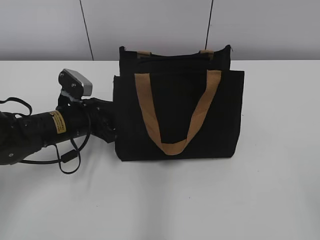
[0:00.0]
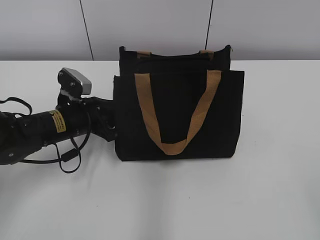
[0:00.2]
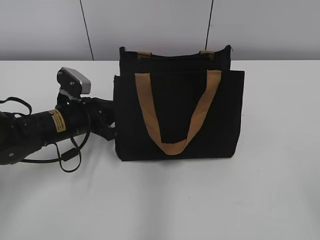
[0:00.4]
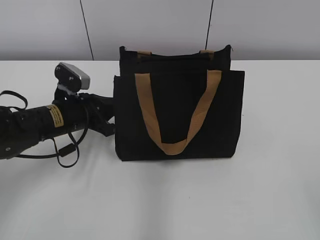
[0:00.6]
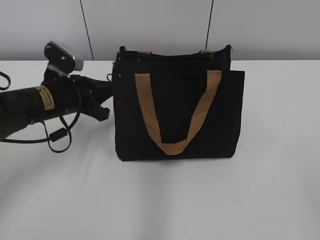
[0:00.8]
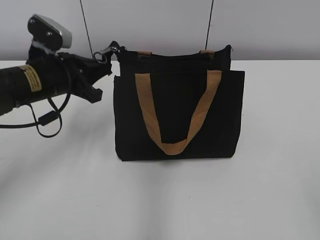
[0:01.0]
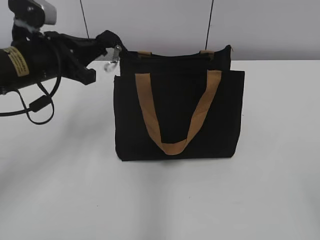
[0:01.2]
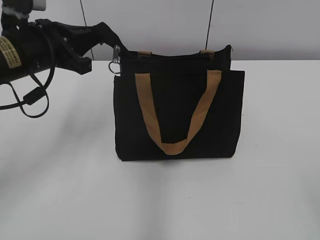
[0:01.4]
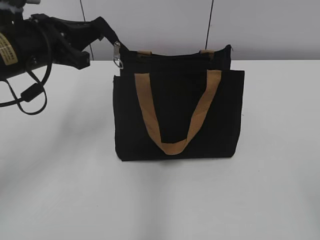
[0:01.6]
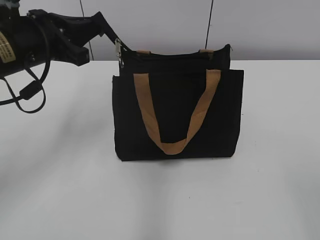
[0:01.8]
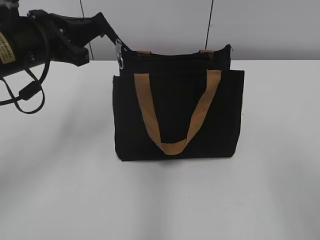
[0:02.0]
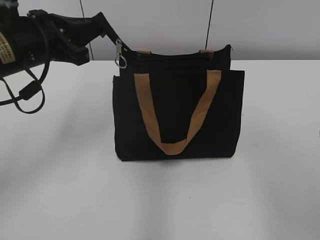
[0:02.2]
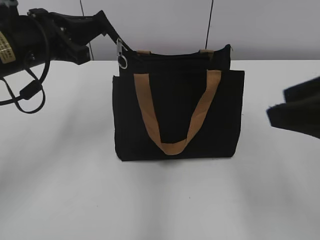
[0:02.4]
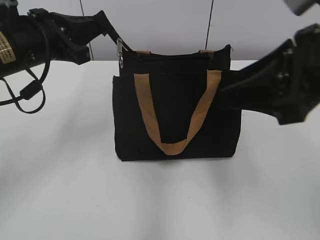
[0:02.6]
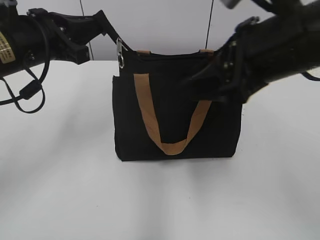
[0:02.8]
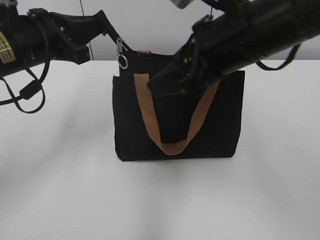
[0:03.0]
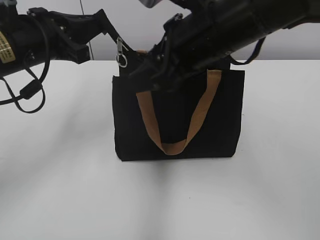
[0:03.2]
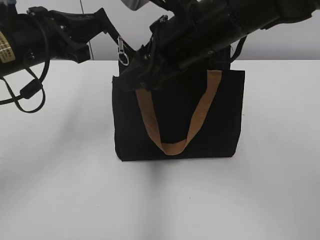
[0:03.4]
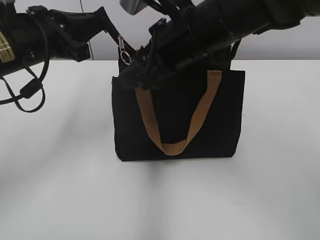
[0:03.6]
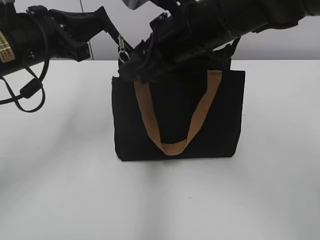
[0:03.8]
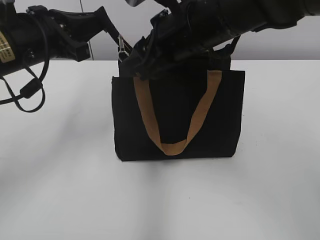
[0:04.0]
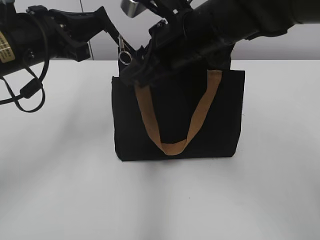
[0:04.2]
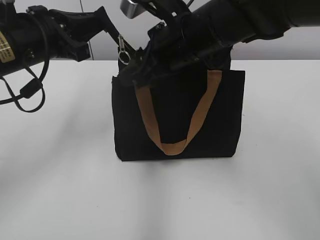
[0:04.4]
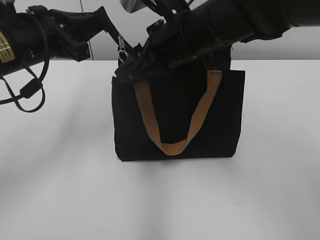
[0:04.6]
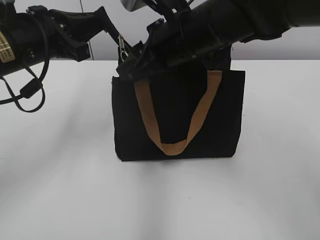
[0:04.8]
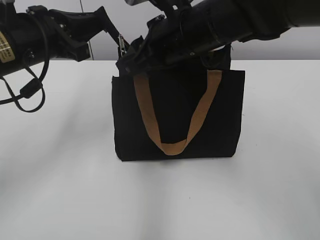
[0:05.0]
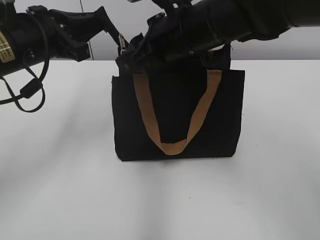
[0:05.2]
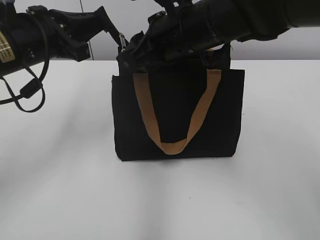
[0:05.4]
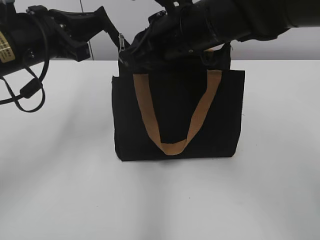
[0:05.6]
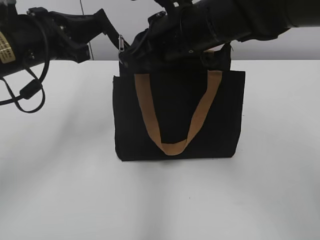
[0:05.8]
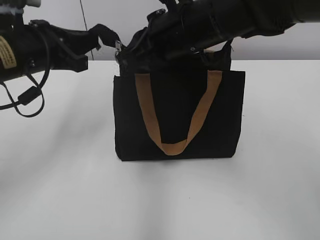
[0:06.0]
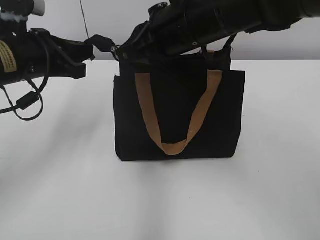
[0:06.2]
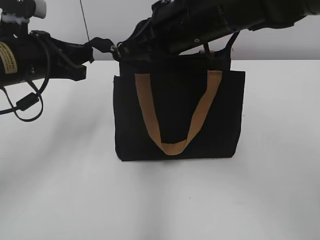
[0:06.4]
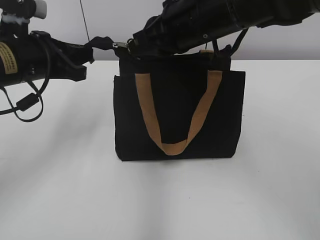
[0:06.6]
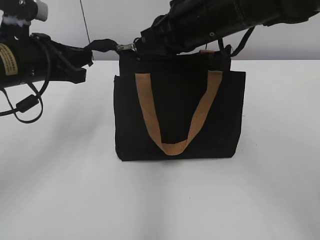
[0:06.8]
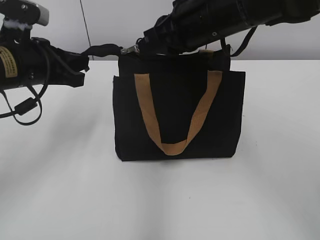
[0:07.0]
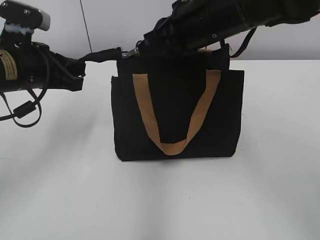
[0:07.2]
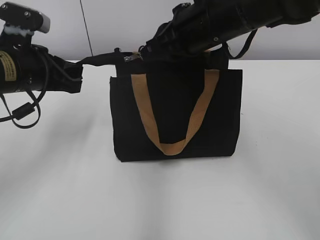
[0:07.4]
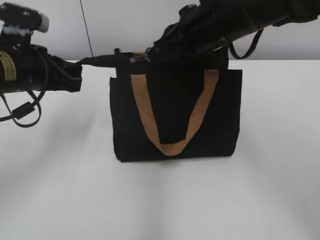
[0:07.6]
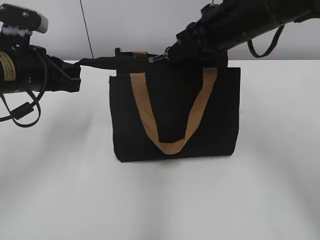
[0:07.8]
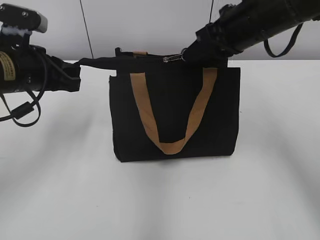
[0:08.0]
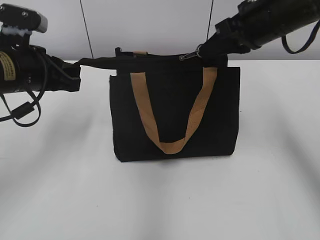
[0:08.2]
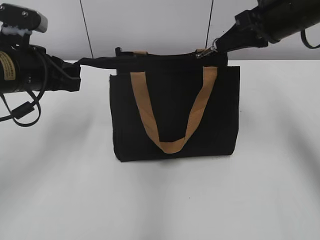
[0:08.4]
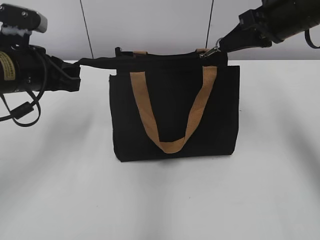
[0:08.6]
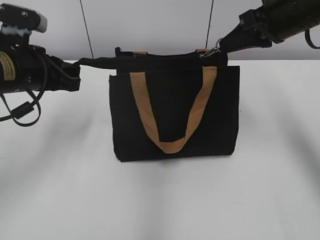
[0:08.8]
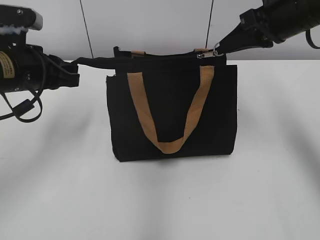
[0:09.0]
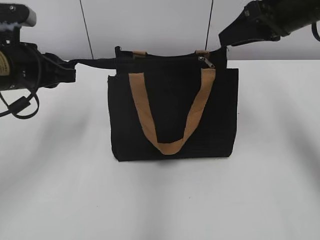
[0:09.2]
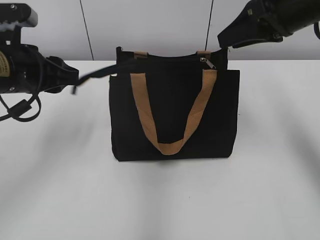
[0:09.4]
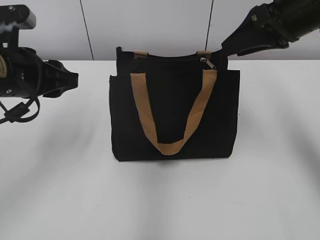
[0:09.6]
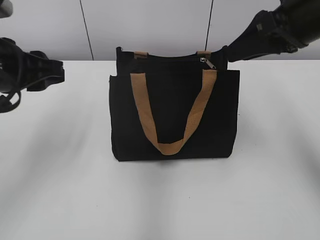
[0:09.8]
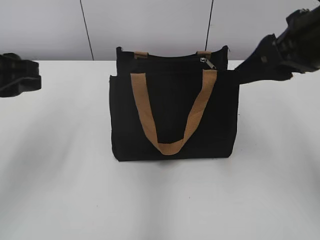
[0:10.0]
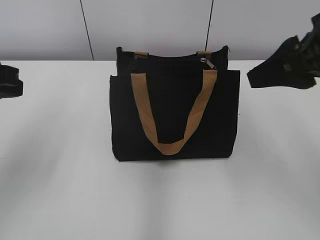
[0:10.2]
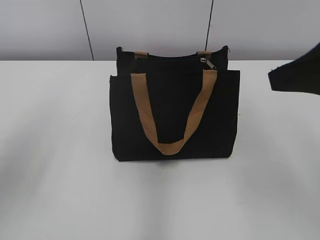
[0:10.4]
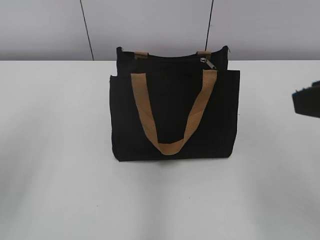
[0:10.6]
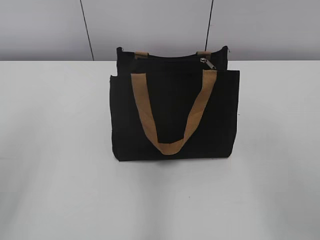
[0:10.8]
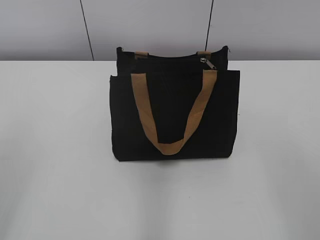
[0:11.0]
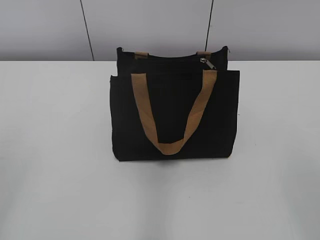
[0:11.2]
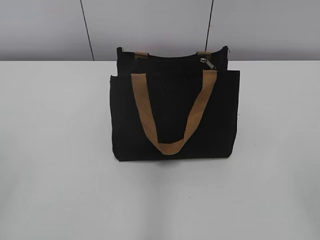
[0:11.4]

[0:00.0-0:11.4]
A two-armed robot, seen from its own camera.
Step, 0:00.0 to 0:09.0: Zip up the bag with your right hand.
Step, 0:09.2 to 0:09.4: Grab the zipper with your left hand.
0:00.0 to 0:01.4: The left gripper heads upward, covering approximately 15 cm, and closes.
0:01.4 to 0:02.8: The right gripper is displaced forward and to the left by about 30 cm.
0:02.8 to 0:04.2: The right gripper heads forward and to the left, covering some 10 cm.
0:04.2 to 0:05.6: The right gripper closes up.
0:07.2 to 0:08.6: The right gripper heads to the right, covering about 15 cm.
0:08.6 to 0:10.0: The left gripper goes approximately 10 cm backward and upward, and opens. The right gripper is displaced backward by approximately 10 cm, and opens up.
0:10.0 to 0:11.4: The left gripper goes some 25 cm backward and to the left. The right gripper goes about 25 cm backward.

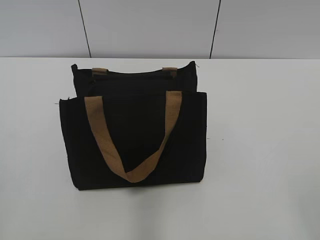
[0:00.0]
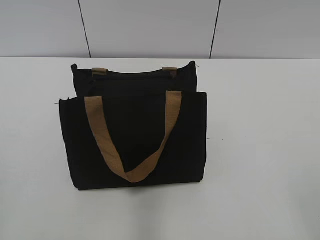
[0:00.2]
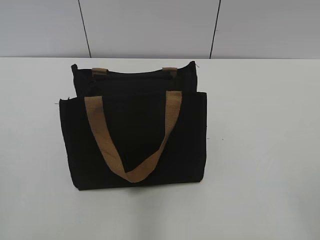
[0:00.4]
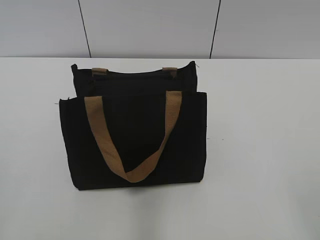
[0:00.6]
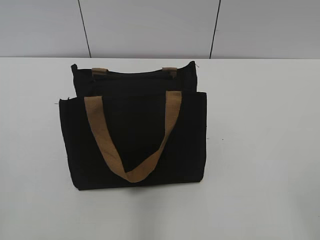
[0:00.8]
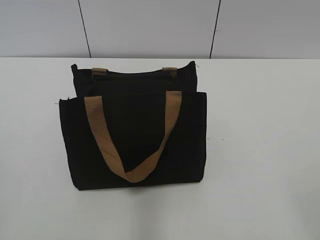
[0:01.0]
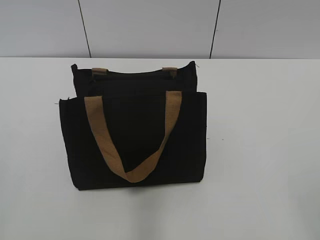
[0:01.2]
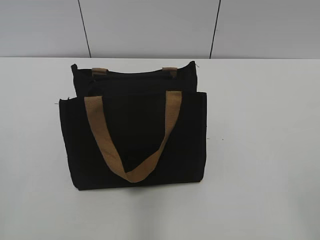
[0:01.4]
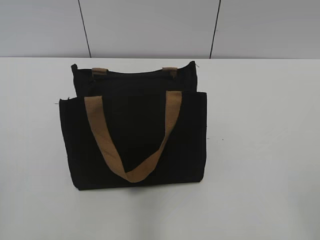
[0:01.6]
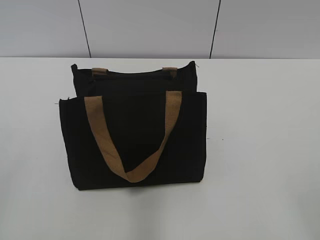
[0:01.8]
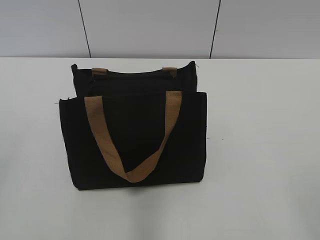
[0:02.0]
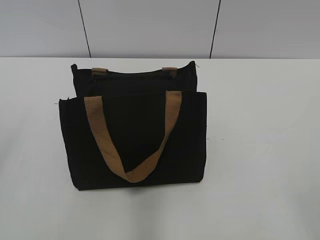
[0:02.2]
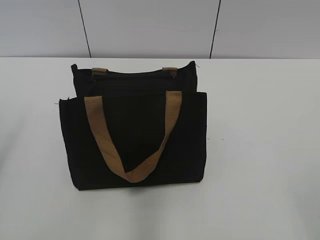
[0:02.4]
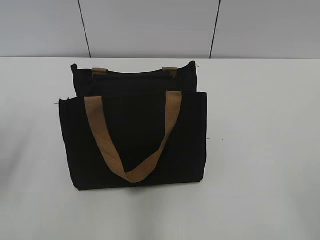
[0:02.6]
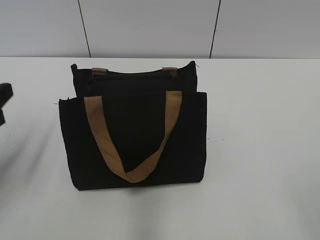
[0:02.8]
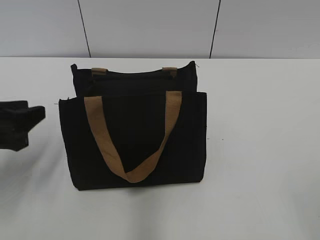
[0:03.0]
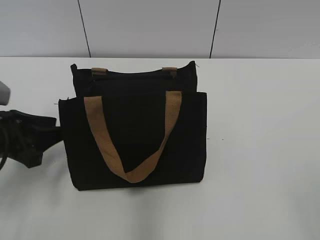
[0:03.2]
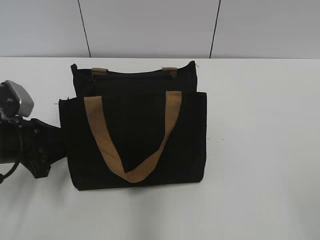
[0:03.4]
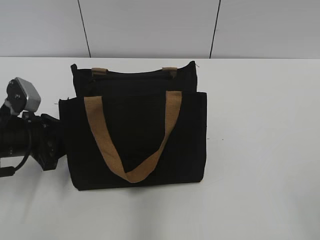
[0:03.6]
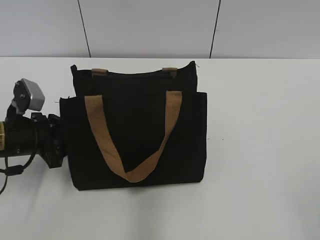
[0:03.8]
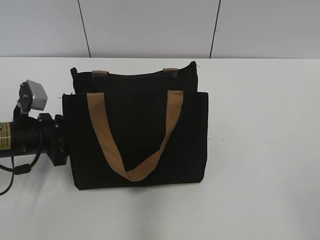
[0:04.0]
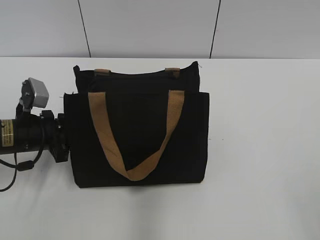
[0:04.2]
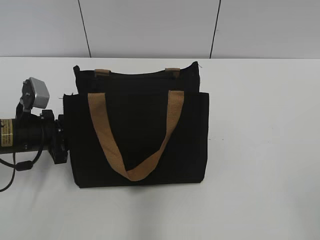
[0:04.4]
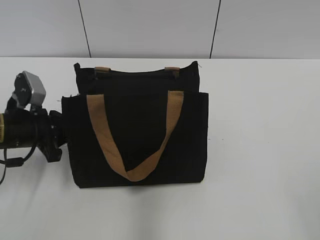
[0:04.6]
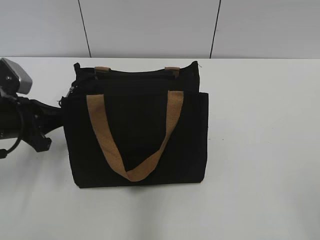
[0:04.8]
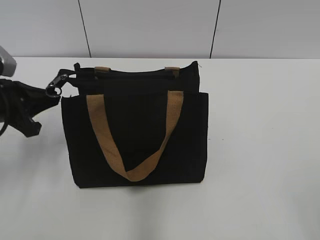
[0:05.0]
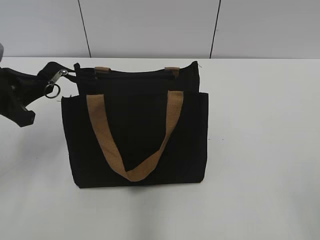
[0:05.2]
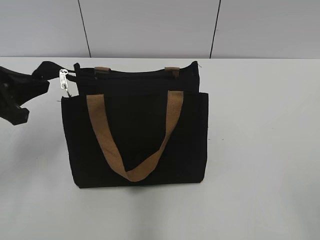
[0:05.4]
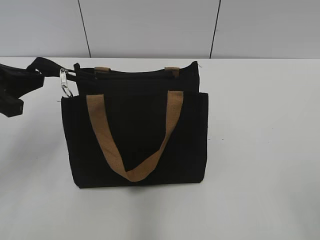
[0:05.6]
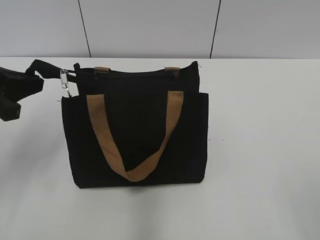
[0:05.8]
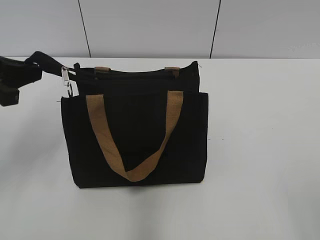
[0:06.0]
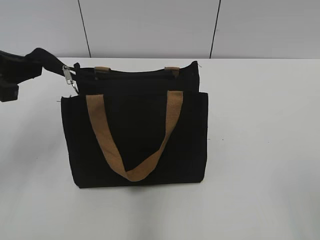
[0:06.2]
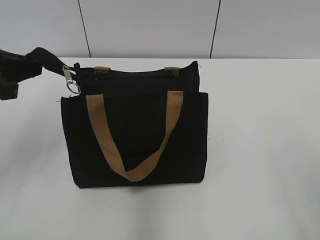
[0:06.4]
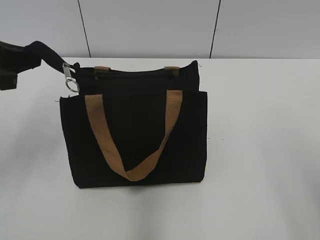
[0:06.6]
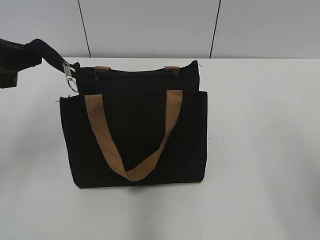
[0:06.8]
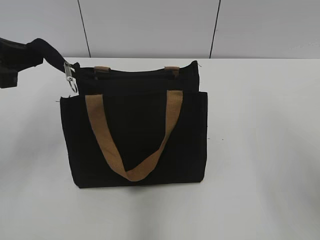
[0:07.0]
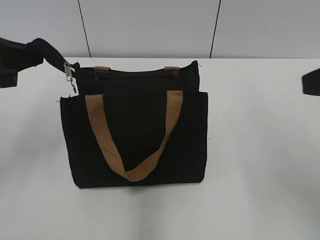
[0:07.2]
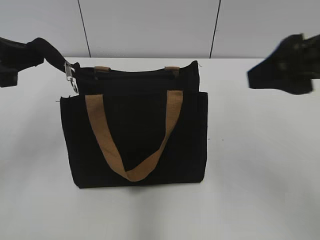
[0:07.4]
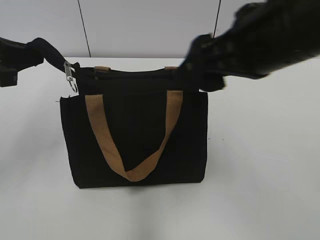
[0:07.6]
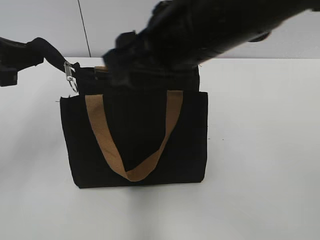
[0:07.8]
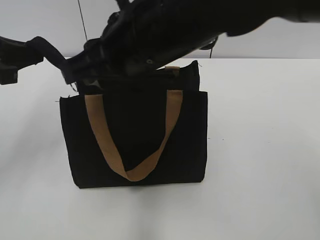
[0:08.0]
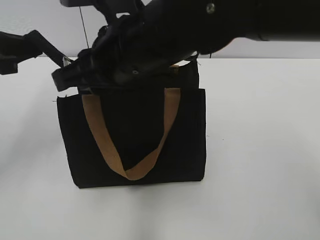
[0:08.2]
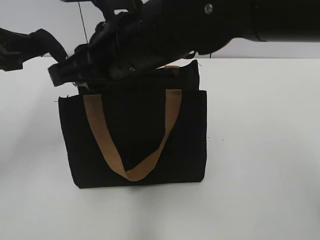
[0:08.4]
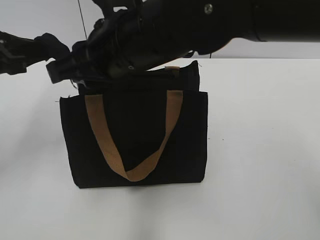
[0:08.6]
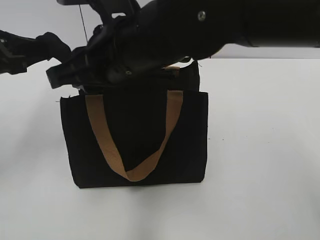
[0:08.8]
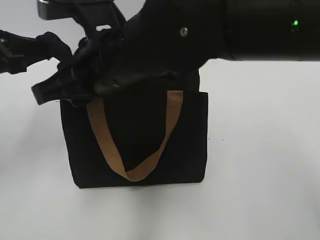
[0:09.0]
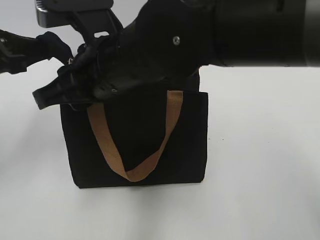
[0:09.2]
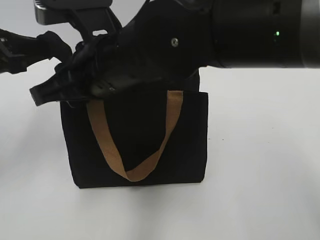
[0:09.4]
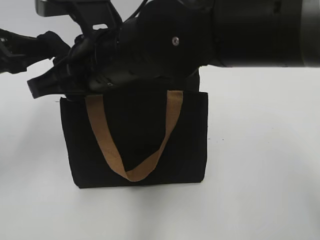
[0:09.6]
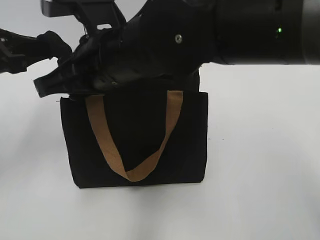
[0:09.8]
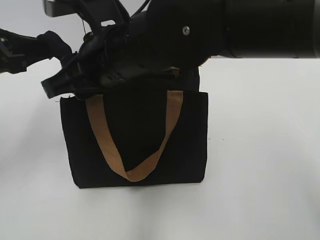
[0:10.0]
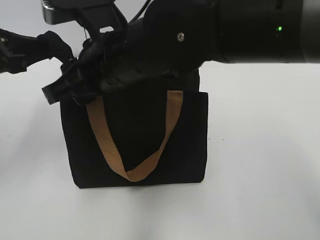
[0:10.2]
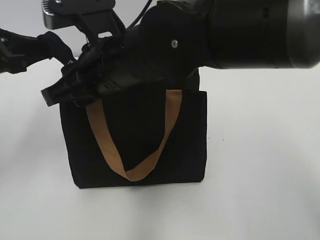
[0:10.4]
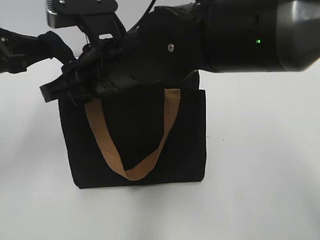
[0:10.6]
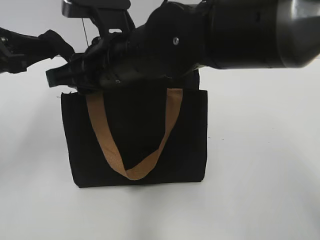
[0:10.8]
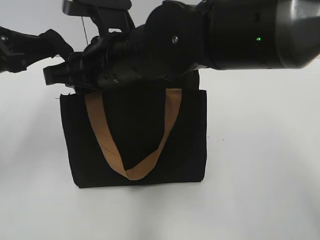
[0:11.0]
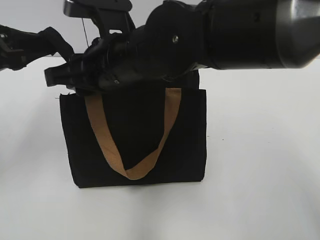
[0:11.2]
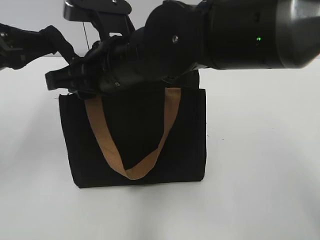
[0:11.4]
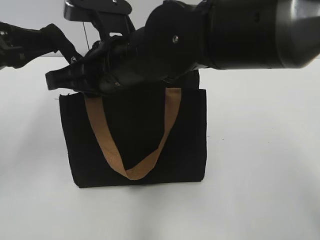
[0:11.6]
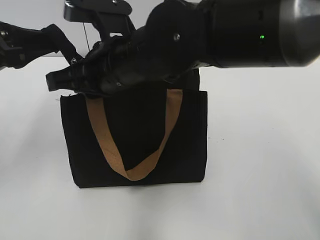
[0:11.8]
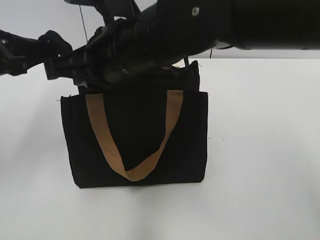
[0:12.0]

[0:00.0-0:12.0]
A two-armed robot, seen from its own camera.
0:01.6 to 0:03.0: The left gripper heads forward and downward, covering about 25 cm, and opens and closes again.
0:03.0 to 0:04.4: The left gripper heads forward and downward, covering roughly 10 cm, and closes up.
0:04.4 to 0:06.0: The left gripper travels upward by about 15 cm.
0:06.0 to 0:07.6: The right gripper shifts about 25 cm forward and to the left.
0:07.6 to 0:09.0: The right gripper moves to the left, roughly 15 cm, and closes.
0:09.0 to 0:10.4: The grippers stay close to where they were, moving slightly.
0:10.4 to 0:12.0: The right gripper closes.
